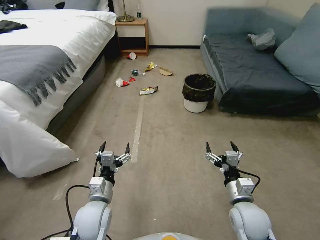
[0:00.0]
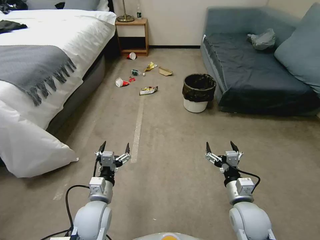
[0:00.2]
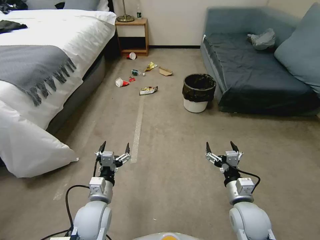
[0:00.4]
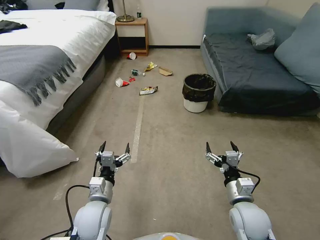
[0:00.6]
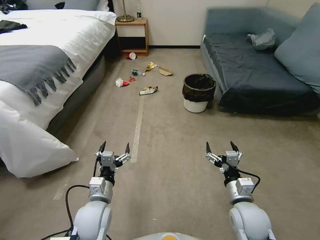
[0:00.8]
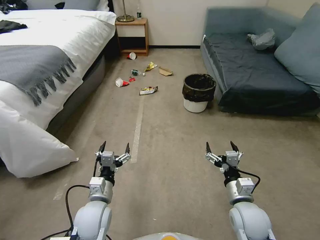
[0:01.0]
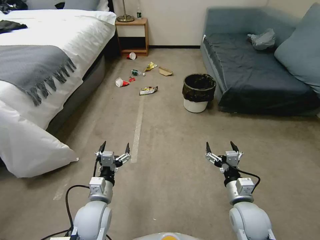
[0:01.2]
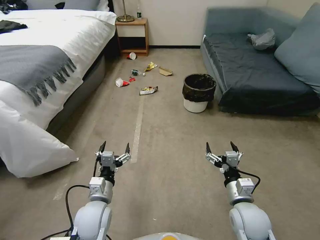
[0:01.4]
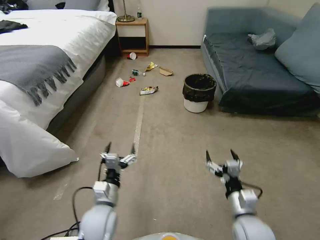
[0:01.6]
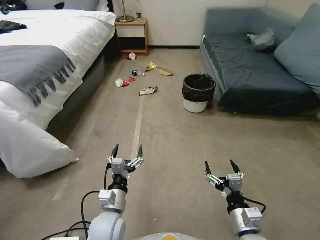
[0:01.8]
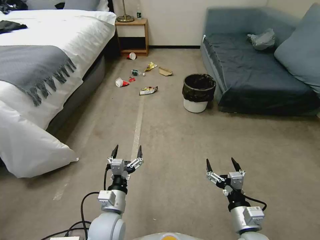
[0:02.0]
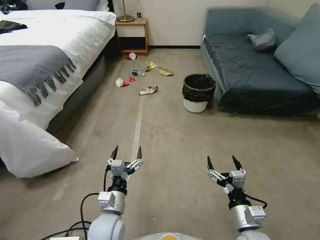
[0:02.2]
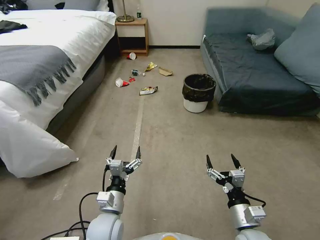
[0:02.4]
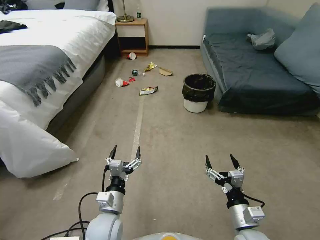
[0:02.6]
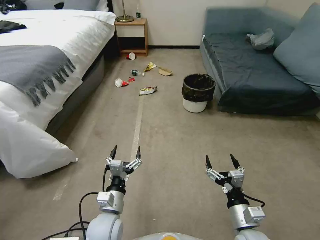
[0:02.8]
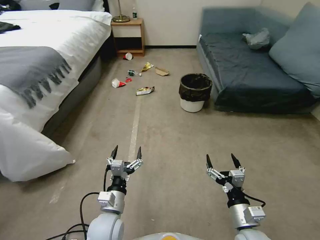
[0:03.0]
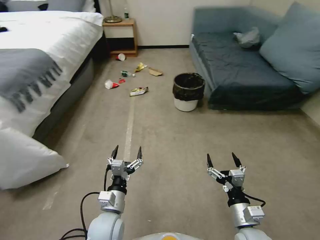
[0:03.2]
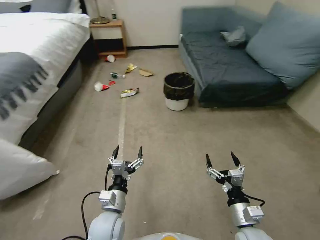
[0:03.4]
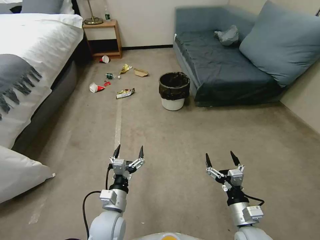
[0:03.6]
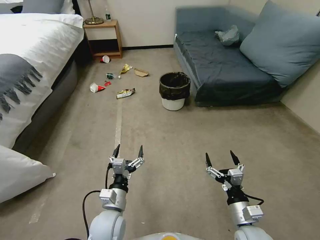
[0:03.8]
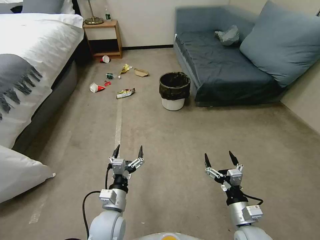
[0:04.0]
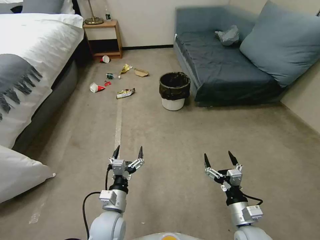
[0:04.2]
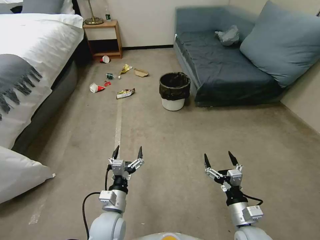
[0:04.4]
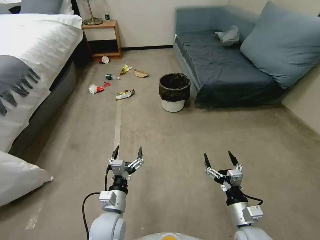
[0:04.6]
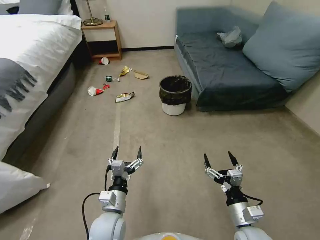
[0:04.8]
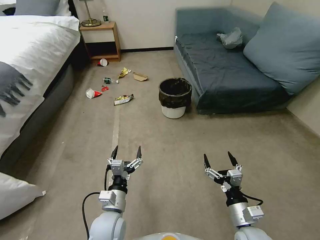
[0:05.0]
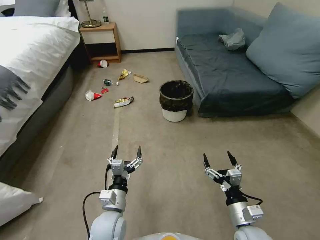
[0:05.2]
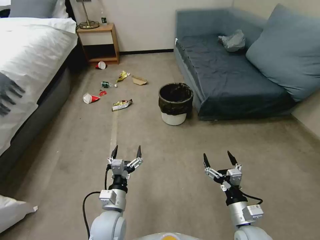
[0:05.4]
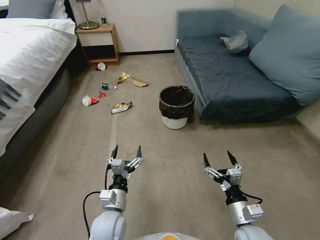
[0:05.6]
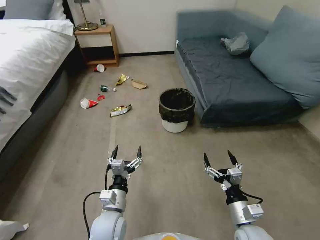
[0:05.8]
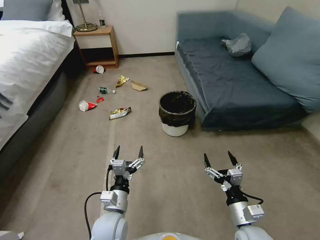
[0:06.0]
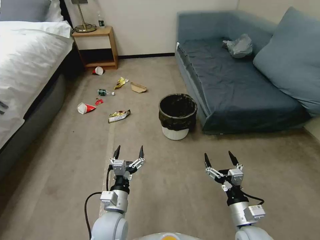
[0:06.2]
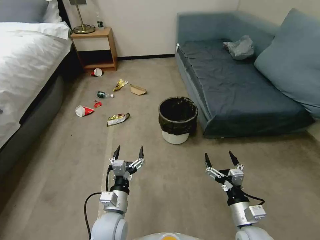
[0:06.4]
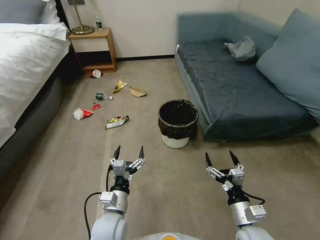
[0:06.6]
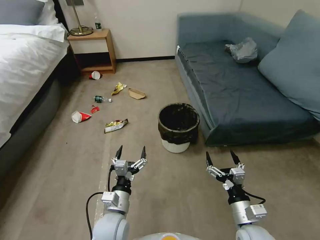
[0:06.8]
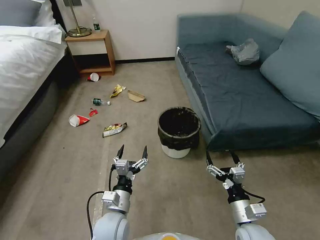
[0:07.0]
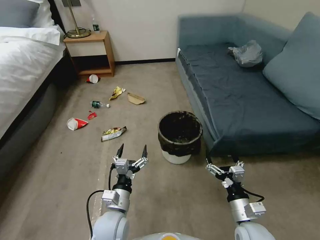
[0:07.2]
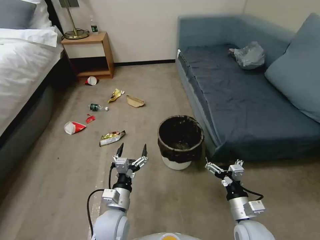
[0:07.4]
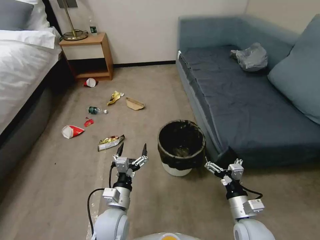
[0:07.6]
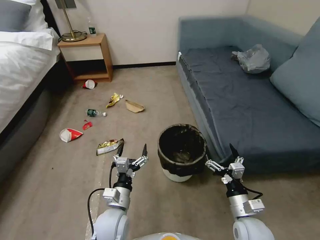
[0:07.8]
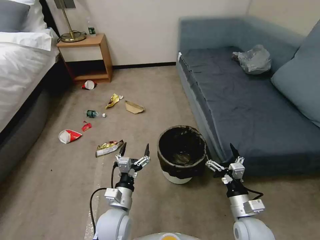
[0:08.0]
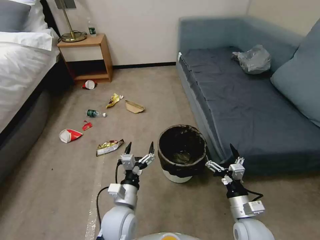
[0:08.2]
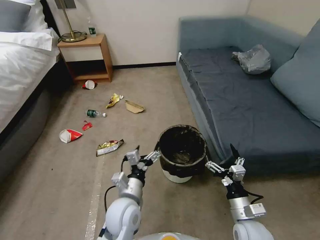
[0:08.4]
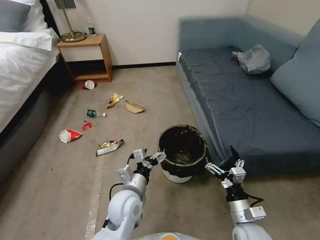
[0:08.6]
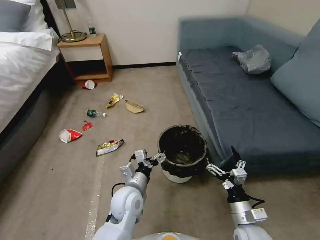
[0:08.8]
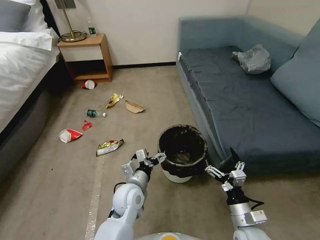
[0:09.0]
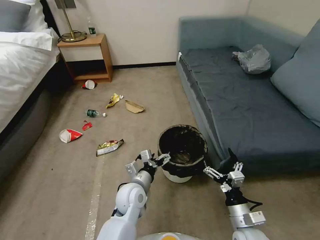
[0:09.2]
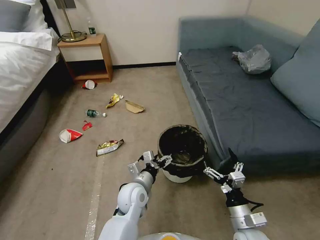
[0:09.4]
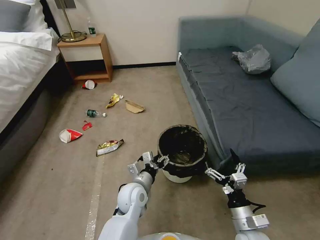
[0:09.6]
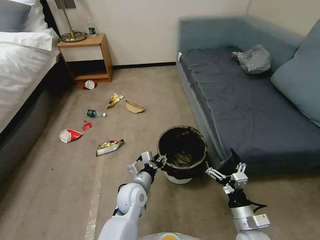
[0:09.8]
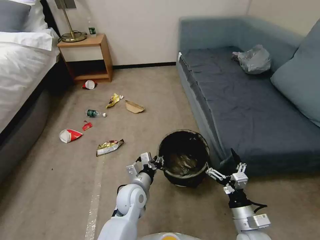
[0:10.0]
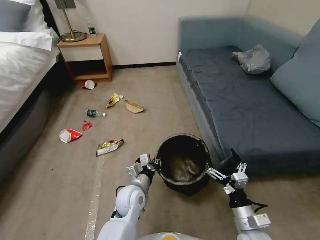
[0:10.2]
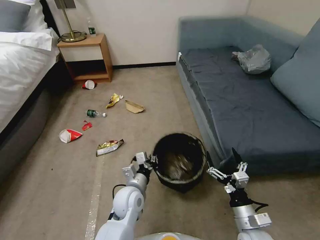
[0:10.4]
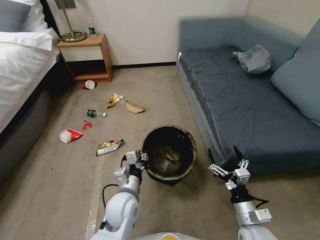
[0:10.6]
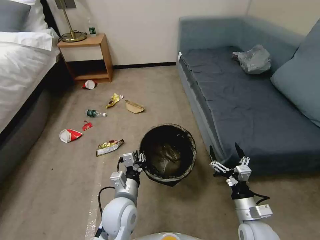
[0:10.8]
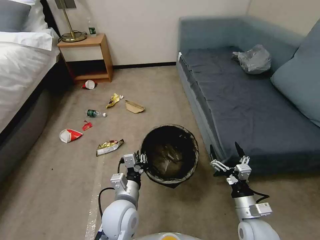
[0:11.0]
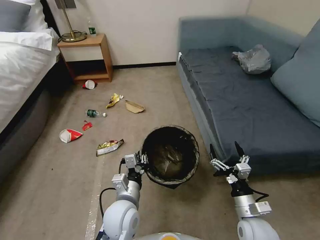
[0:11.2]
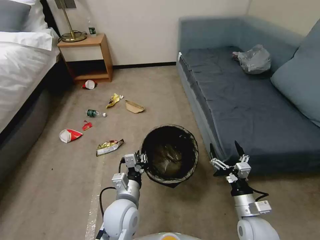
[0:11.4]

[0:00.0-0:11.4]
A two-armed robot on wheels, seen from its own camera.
Task of the whole recording: Pick up the trash can from the floor.
0:01.4 to 0:02.8: The right gripper shifts approximately 5 cm backward.
0:07.2 to 0:08.6: The left gripper heads upward, covering some 5 cm.
0:08.6 to 0:10.0: The left gripper shifts roughly 5 cm downward, and closes.
0:10.0 to 0:11.4: The left gripper shifts about 5 cm backward.

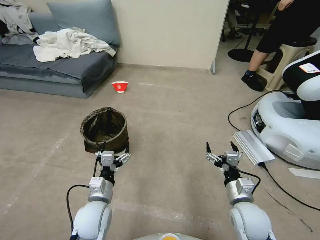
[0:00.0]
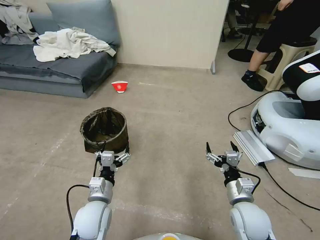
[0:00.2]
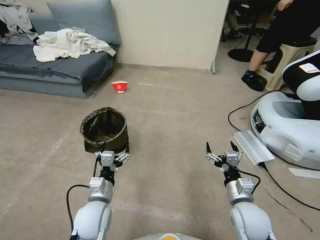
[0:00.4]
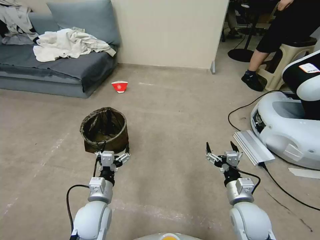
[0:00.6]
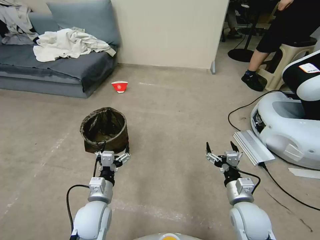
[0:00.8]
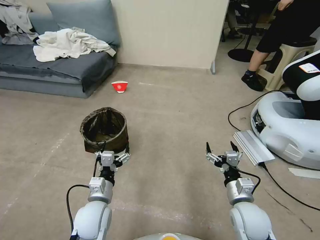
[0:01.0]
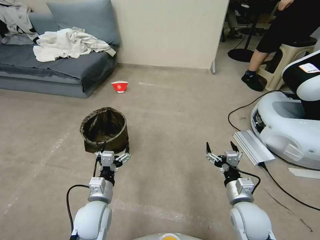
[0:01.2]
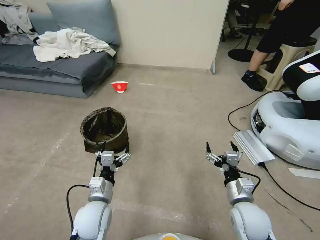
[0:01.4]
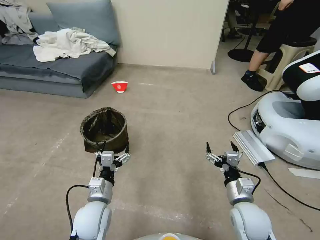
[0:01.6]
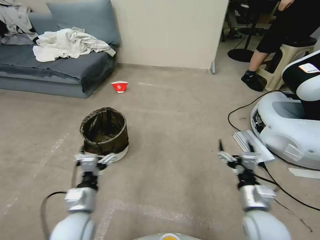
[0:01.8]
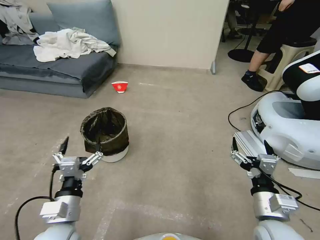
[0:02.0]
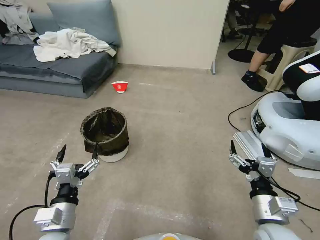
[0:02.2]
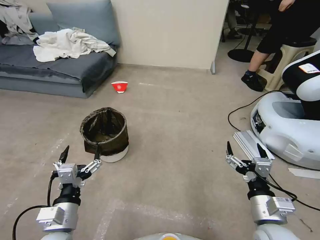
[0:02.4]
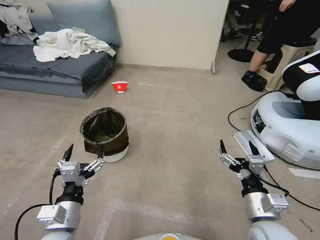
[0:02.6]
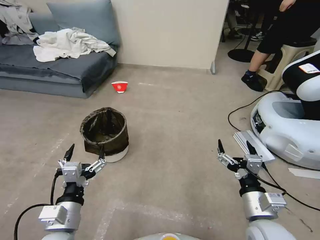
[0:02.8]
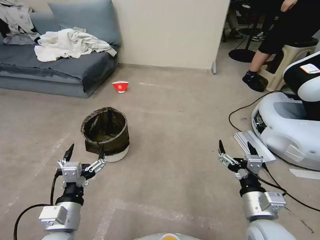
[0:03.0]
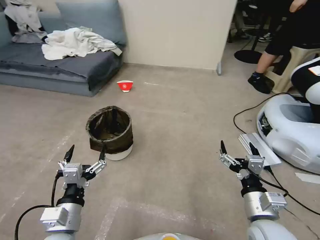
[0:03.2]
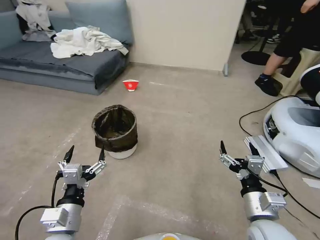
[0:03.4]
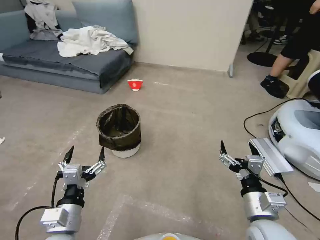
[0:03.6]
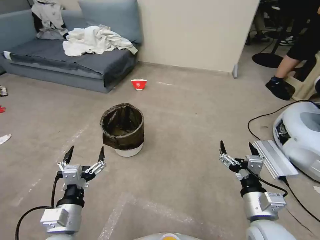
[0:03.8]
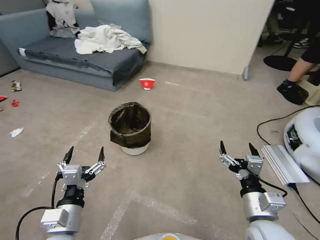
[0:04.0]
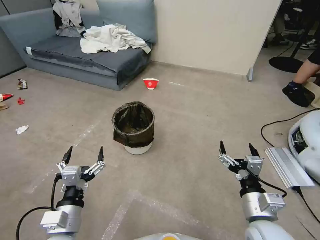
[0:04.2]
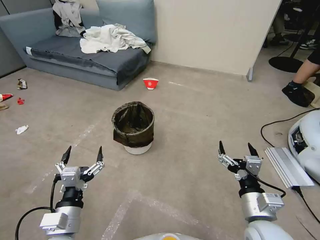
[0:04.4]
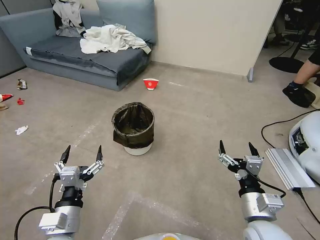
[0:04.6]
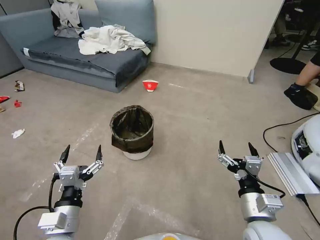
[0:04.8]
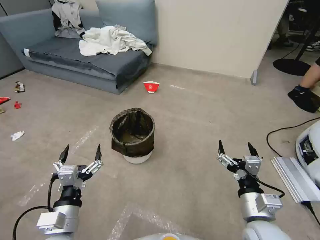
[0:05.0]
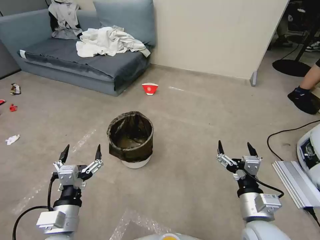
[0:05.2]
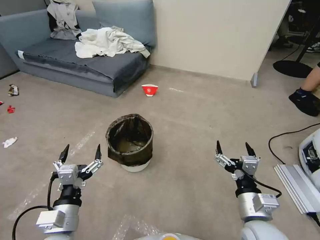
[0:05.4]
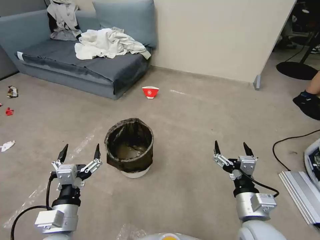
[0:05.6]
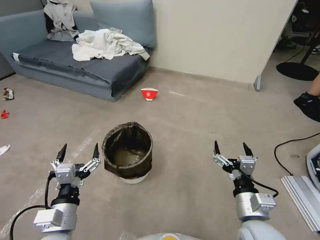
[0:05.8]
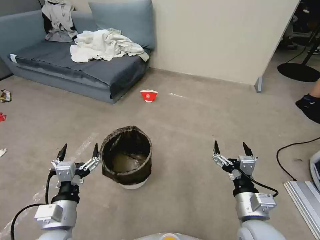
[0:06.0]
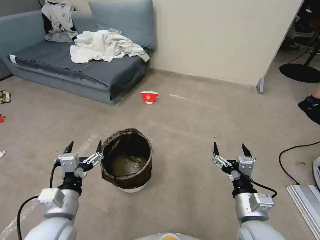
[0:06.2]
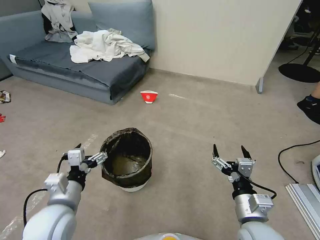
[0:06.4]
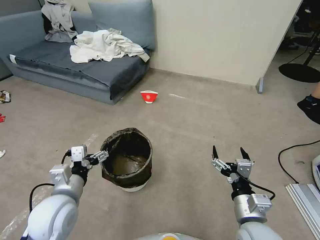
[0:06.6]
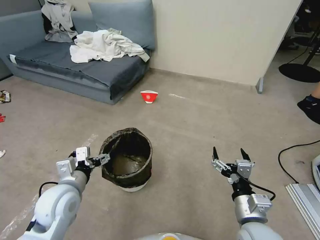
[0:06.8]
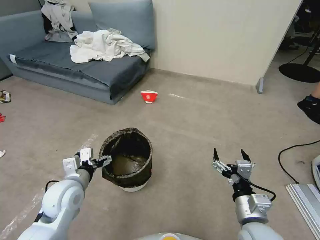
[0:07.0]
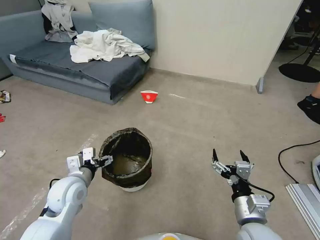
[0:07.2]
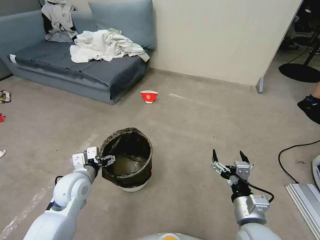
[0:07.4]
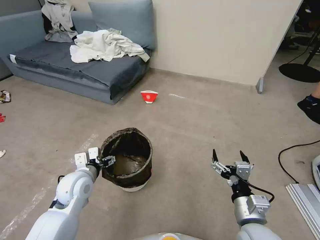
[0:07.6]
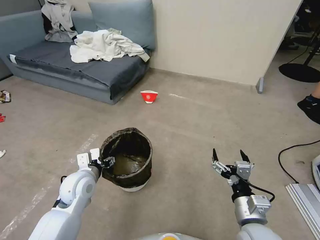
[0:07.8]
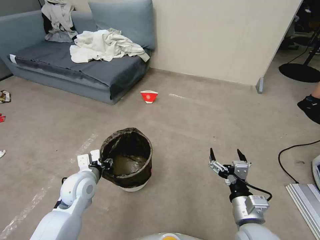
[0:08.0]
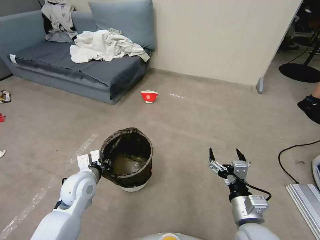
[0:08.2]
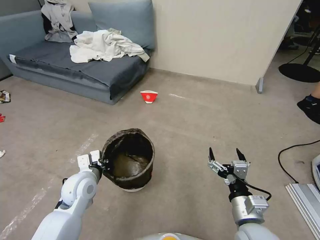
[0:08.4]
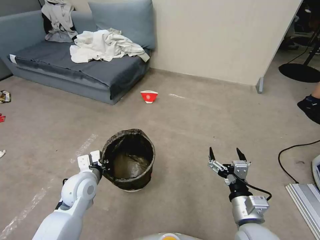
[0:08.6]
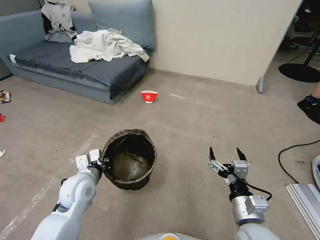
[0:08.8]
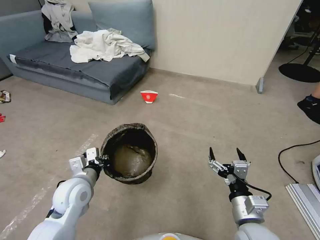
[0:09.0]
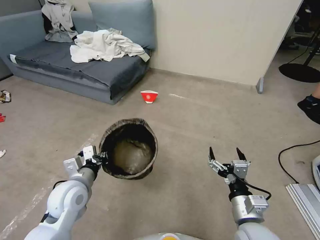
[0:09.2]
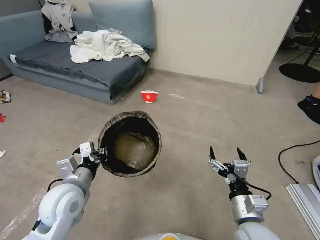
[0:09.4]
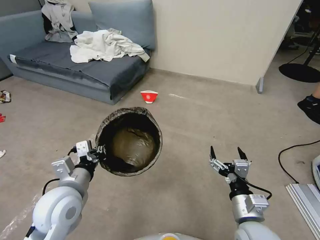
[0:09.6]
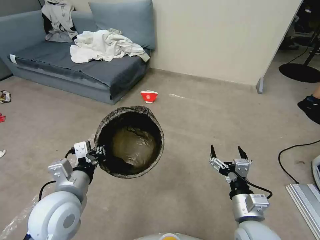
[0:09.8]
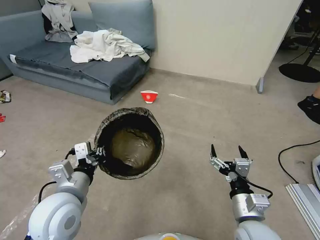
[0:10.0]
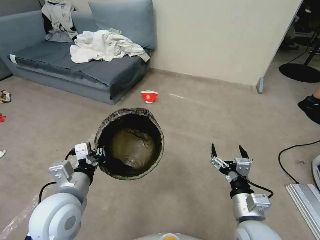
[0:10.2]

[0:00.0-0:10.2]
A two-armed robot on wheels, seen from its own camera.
Task of the whole recording: Pick up the trash can from the floor.
0:01.4 to 0:03.0: The left gripper moves backward and upward, approximately 10 cm. Meanwhile the right gripper is displaced upward and backward by some 10 cm.
0:05.8 to 0:07.2: The left gripper heads forward, covering roughly 15 cm.
0:07.2 to 0:08.8: The left gripper closes its fingers.
0:08.8 to 0:10.2: The left gripper shifts approximately 10 cm upward and backward.
